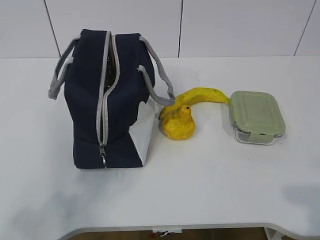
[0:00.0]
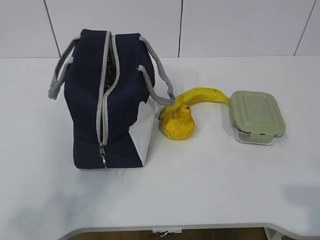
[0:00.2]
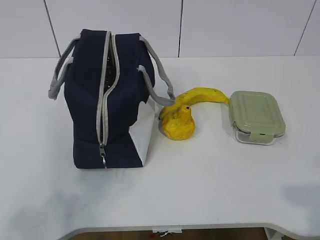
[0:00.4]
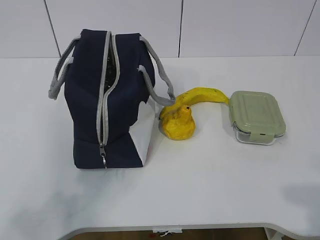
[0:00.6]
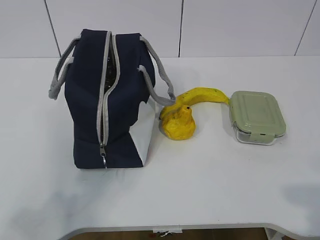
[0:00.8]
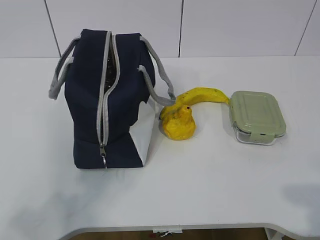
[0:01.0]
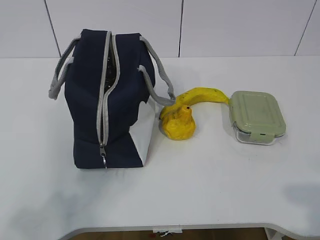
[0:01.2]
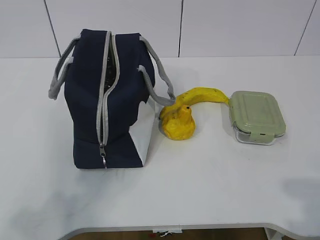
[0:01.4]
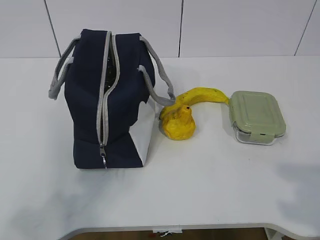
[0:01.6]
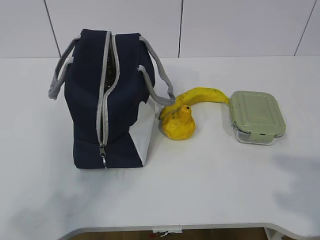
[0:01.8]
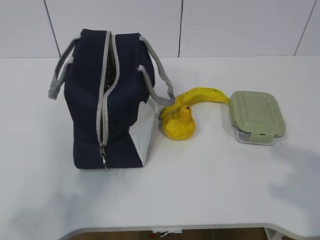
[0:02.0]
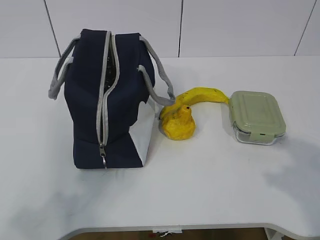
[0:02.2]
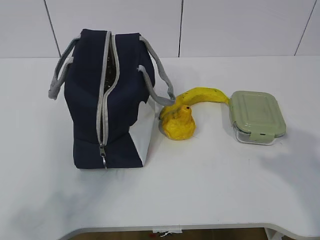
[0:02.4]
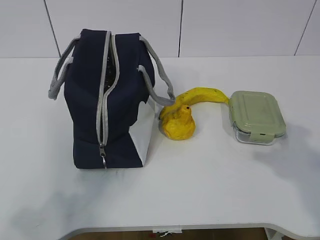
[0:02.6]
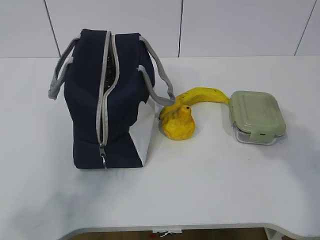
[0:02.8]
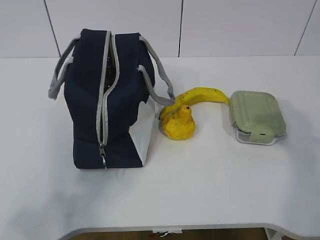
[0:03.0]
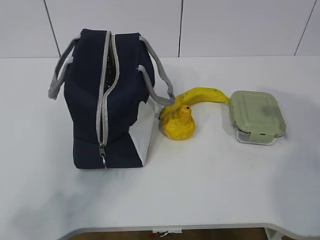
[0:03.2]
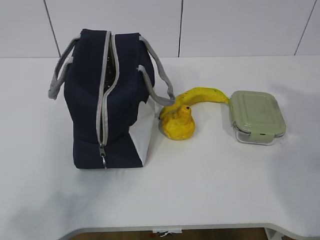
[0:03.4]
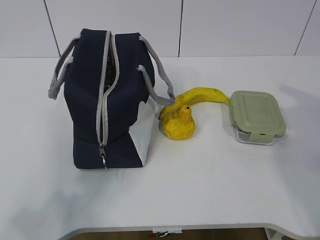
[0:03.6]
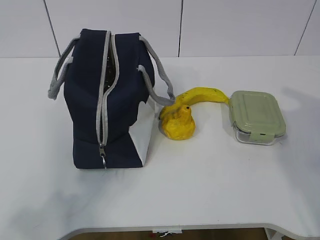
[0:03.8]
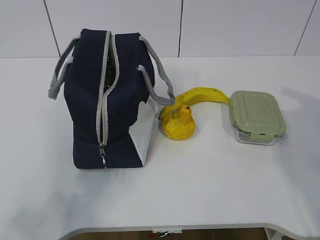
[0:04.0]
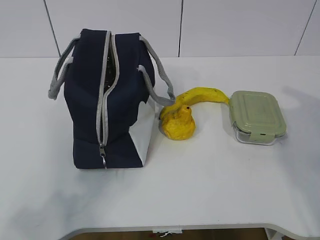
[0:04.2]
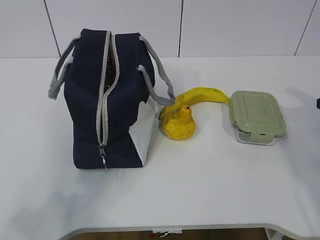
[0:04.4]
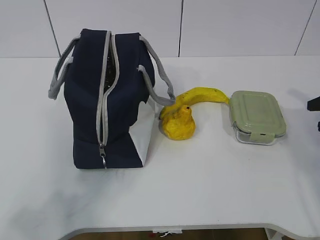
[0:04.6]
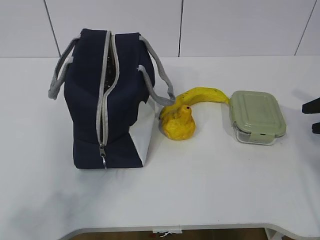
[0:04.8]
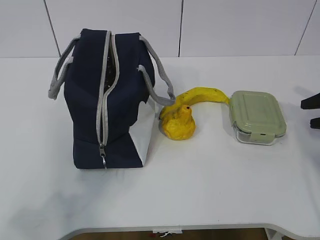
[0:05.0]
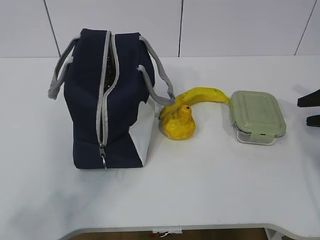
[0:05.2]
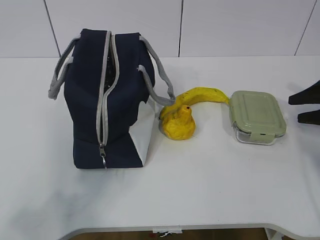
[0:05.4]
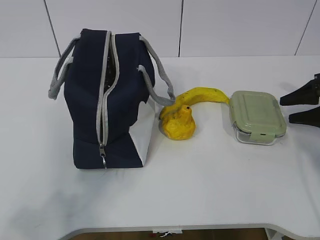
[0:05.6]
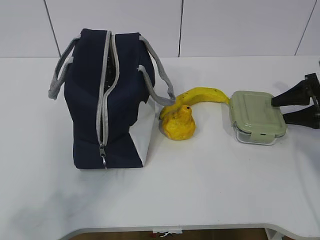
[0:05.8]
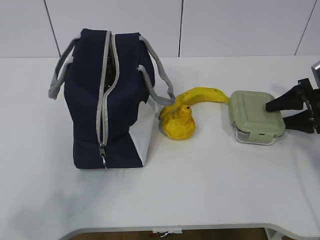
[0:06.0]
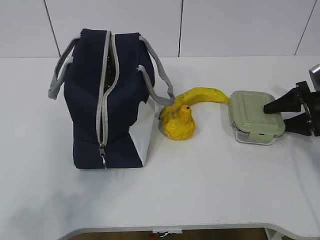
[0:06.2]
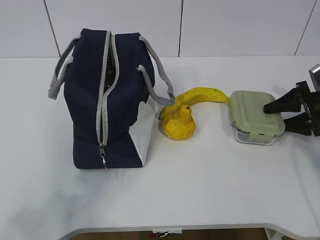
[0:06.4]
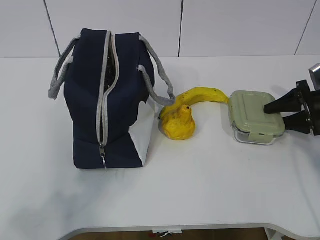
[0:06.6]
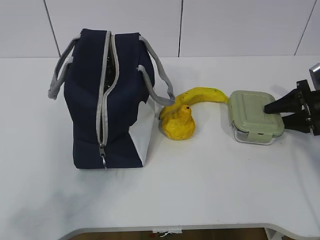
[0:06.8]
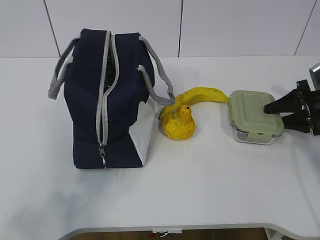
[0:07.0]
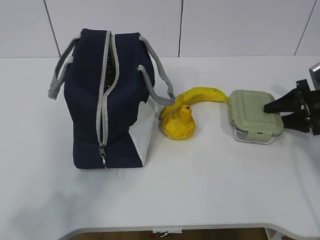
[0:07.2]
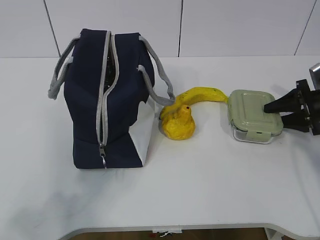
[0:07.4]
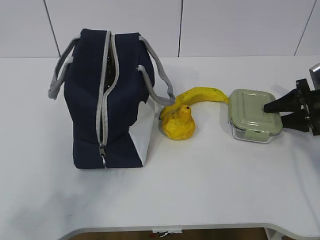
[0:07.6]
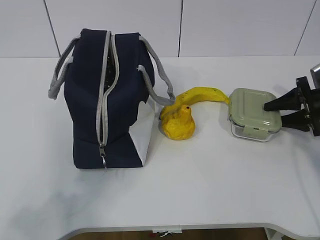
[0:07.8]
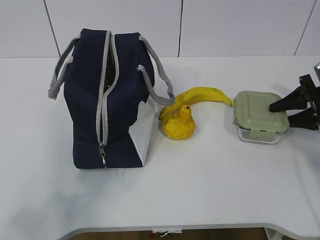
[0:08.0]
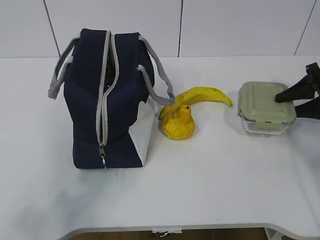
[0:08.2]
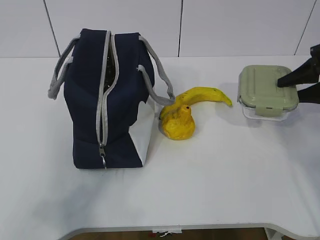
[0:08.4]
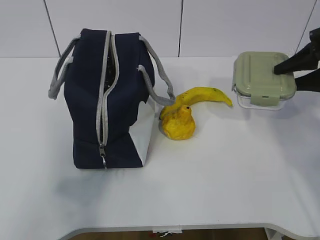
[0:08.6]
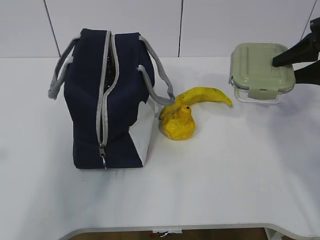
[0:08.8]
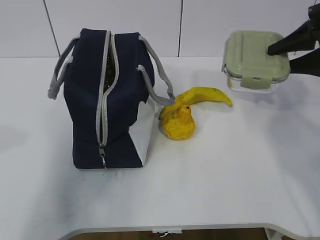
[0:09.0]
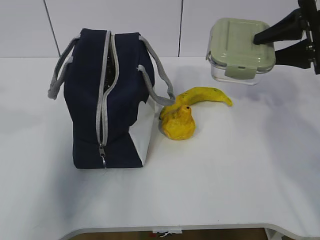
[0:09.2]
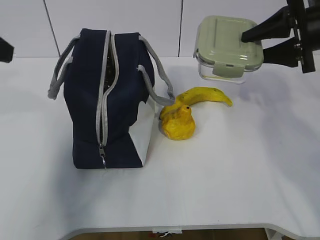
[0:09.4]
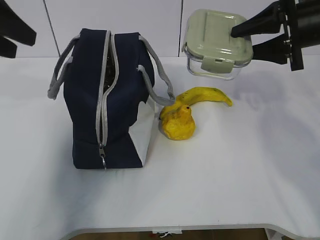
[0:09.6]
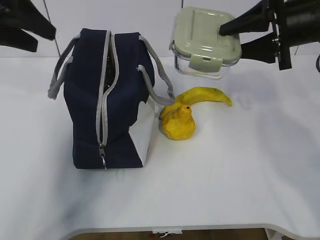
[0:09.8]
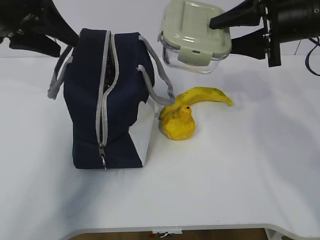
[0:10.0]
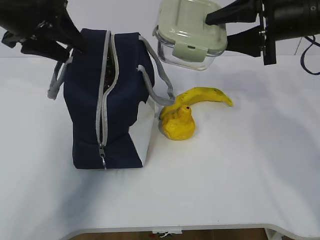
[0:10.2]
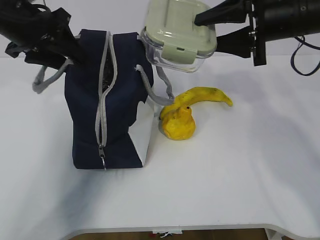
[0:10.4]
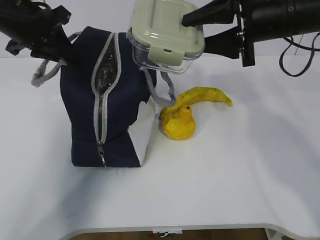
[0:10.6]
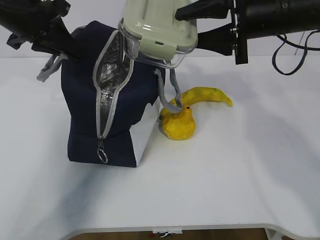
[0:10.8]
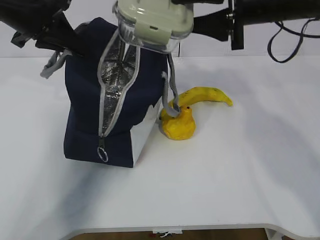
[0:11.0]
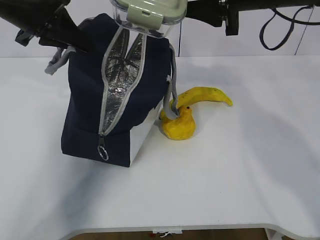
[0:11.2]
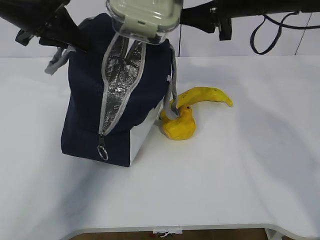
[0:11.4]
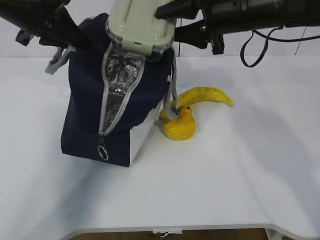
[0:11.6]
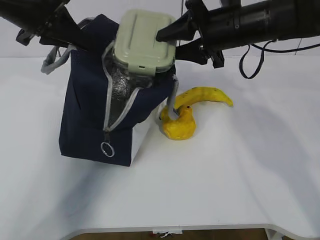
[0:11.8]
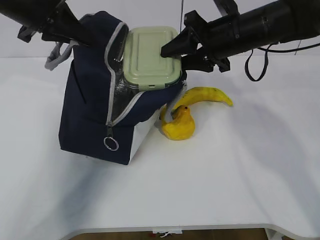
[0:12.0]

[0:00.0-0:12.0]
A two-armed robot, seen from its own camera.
Step, 0:00.0 to 0:06.4: Grab the lunch box with your right hand.
Step, 0:06.8 to 0:09.6: Grab the lunch bag with your left hand.
0:01.6 to 0:03.0: The right gripper heads forward, covering approximately 20 cm.
0:04.4 to 0:06.0: The right gripper travels forward and downward by approximately 15 cm.
0:06.0 to 0:07.6: Neither gripper changes place.
0:07.6 to 0:09.0: The right gripper goes about 15 cm upward. The left gripper travels forward and upward by approximately 15 cm.
0:09.0 to 0:10.4: The right gripper goes approximately 10 cm to the left. The left gripper shifts some 25 cm forward.
0:10.4 to 0:12.0: The right gripper travels to the left by about 5 cm; the left gripper closes.

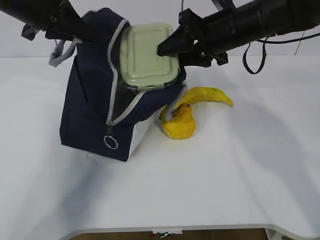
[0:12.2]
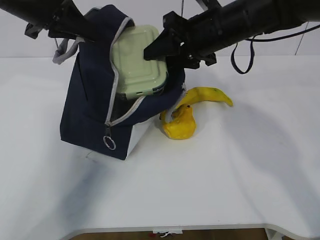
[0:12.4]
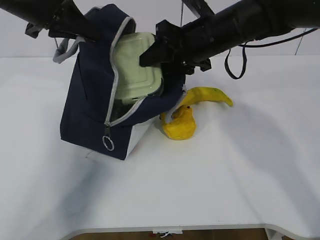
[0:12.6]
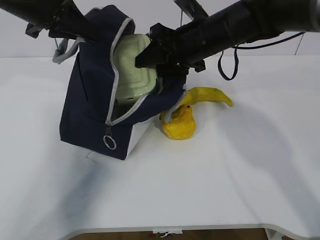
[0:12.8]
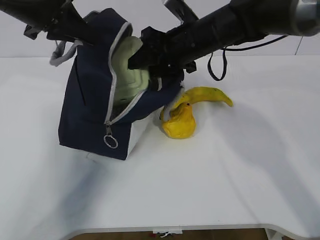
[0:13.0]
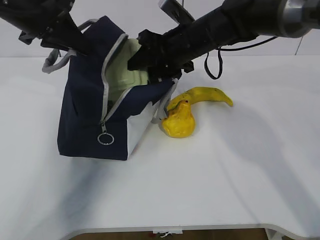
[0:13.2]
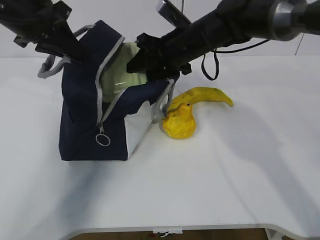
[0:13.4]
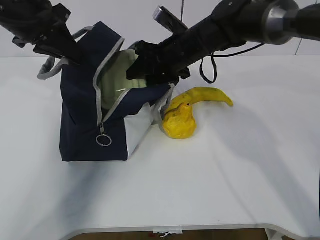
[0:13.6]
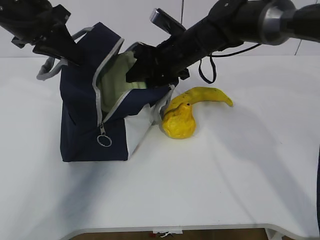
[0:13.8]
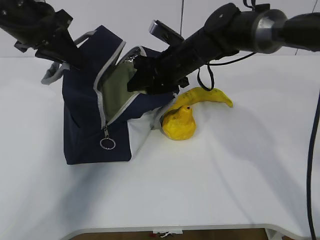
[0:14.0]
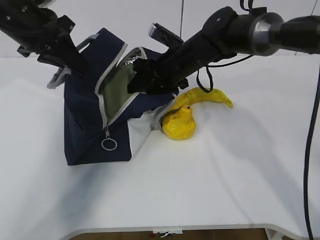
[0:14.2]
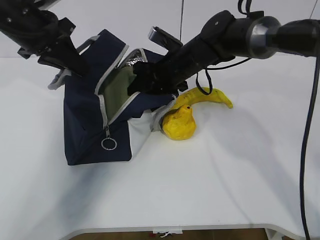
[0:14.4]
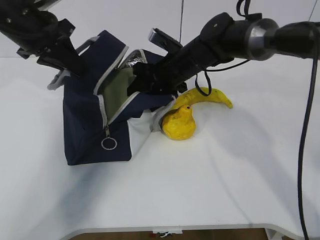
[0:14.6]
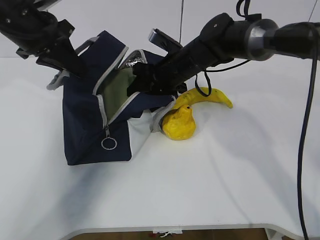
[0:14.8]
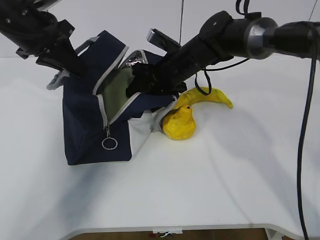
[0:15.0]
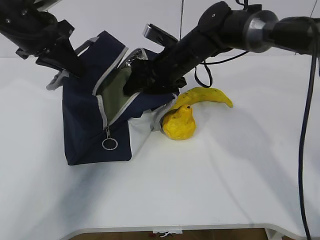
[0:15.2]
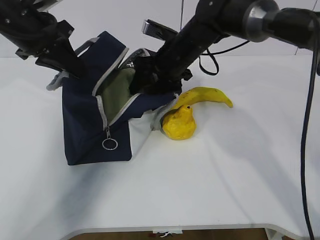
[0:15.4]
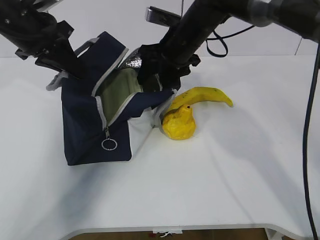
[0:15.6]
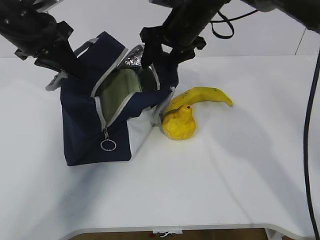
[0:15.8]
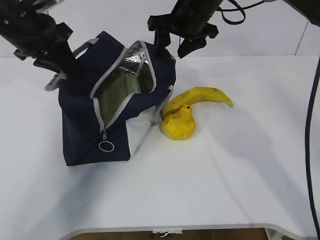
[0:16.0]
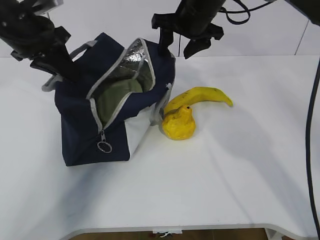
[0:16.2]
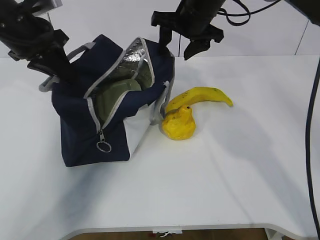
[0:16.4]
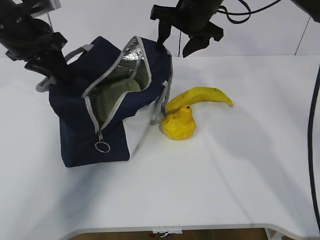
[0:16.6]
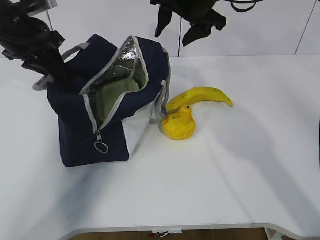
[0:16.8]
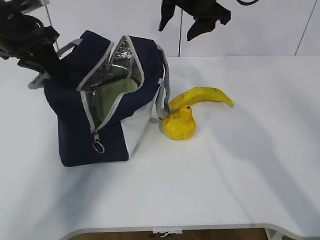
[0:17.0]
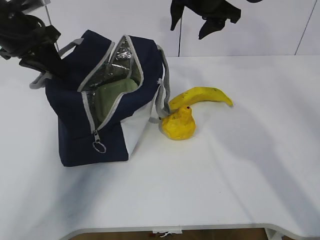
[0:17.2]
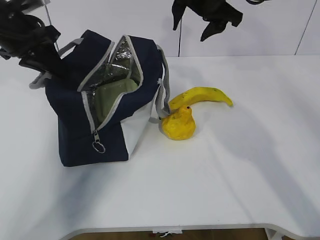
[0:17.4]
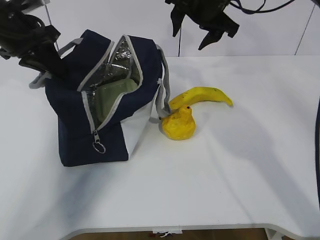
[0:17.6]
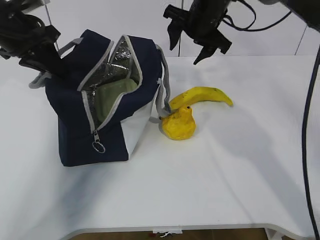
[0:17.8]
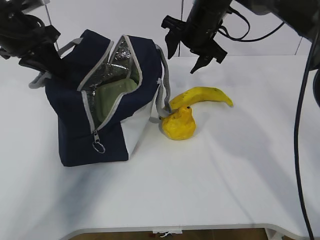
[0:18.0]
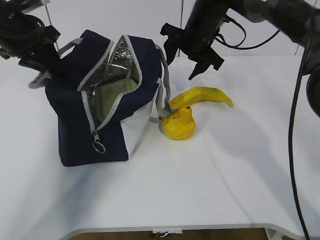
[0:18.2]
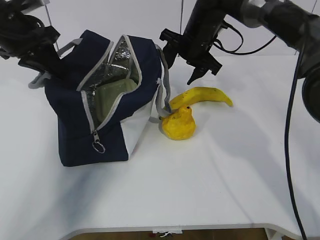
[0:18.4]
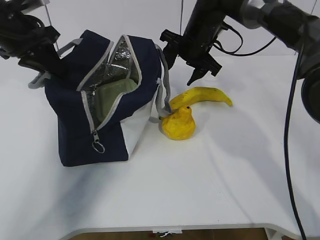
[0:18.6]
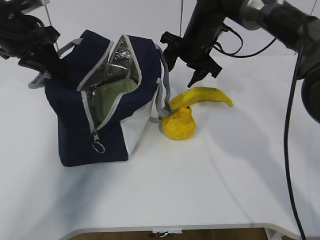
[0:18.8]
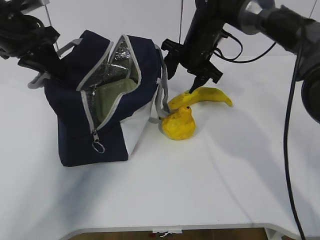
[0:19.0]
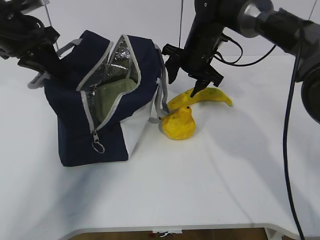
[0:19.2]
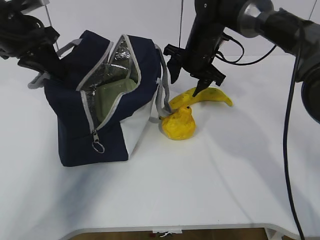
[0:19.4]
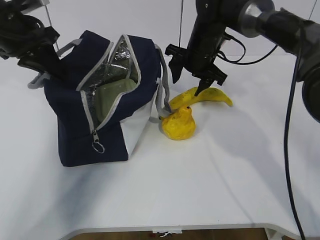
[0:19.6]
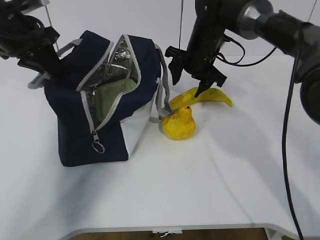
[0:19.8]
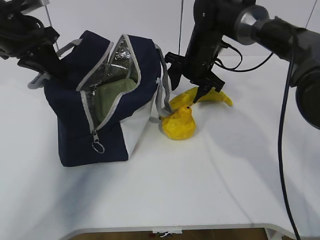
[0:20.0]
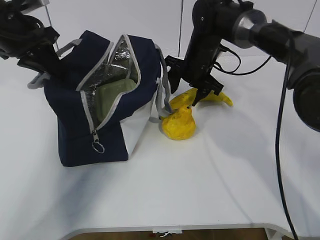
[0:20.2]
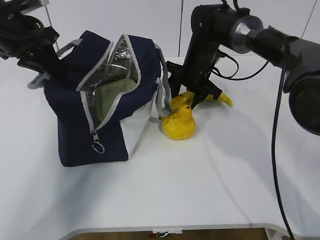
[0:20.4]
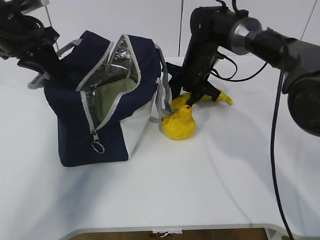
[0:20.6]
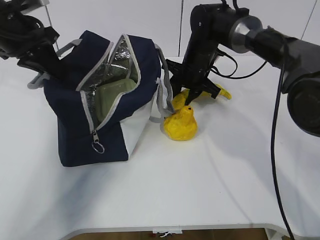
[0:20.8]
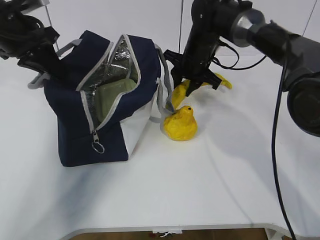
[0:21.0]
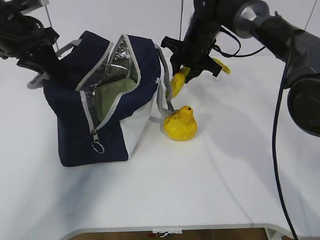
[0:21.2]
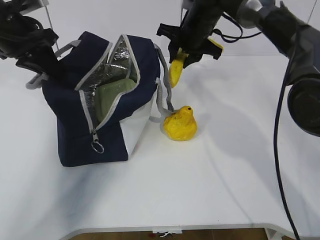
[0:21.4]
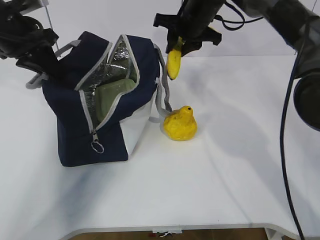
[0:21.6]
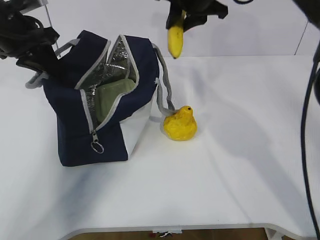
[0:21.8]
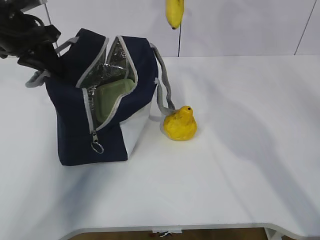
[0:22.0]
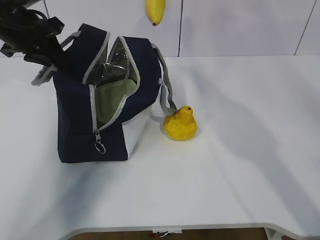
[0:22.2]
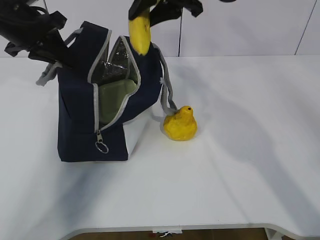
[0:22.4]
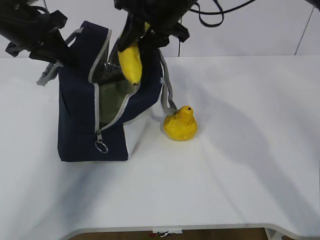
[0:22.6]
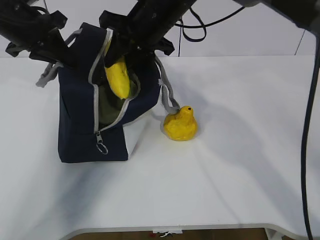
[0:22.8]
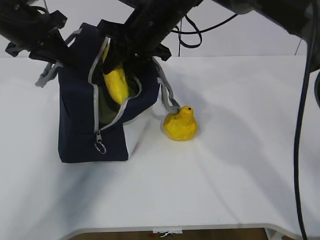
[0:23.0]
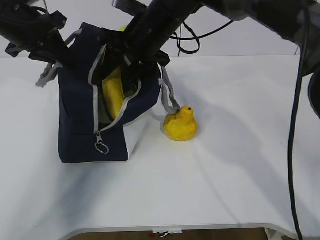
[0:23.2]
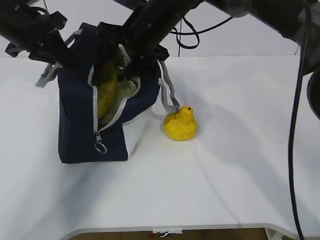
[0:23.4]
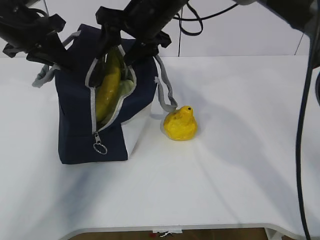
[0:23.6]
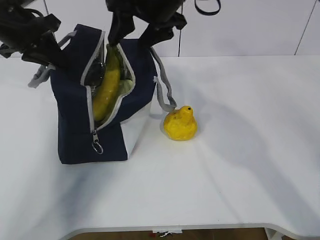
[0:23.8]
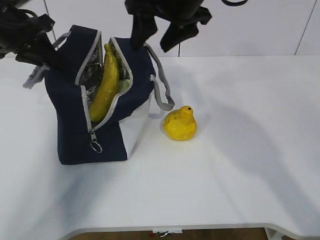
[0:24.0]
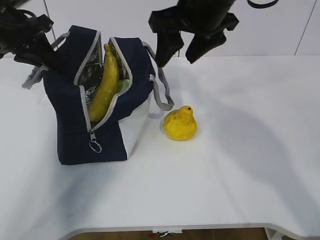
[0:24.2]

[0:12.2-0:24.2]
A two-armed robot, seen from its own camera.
Step, 0:14.0 to 0:17.2: Grab the banana with your right hand.
Step, 0:17.4 to 0:19.4: Place it into the bag with your right hand.
Step, 0:19.6 to 0:22.4: Grab the pear with your right hand.
0:12.2 to 0:13.8: The right gripper is displaced to the left and downward by about 10 cm.
0:13.8 to 0:15.2: There are only small adjustments of the grippers.
0:15.2 to 0:16.6: The right gripper shifts some 10 cm upward.
0:16.6 to 0:18.2: The right gripper shifts by about 5 cm.
0:18.2 to 0:19.8: The grippers move only a little.
0:19.8 to 0:21.2: The right gripper closes.
0:21.2 to 0:22.6: The right gripper travels upward, backward and to the left by about 15 cm.
0:22.6 to 0:24.2: The right gripper is displaced backward by some 5 cm, and opens.
